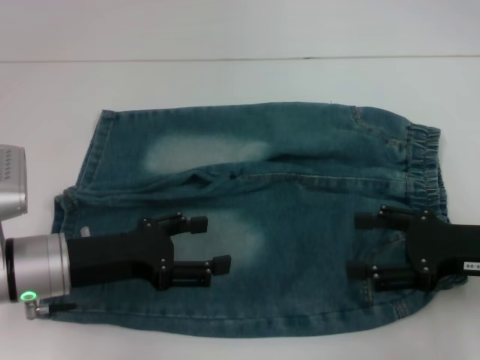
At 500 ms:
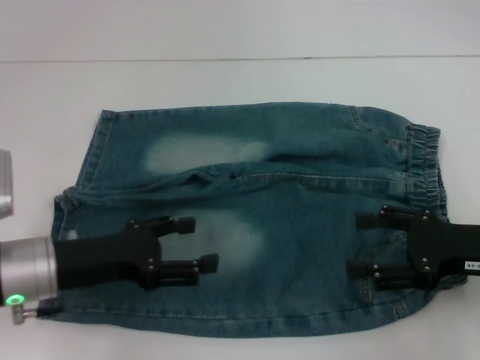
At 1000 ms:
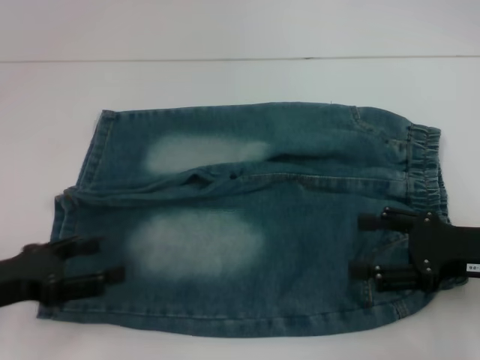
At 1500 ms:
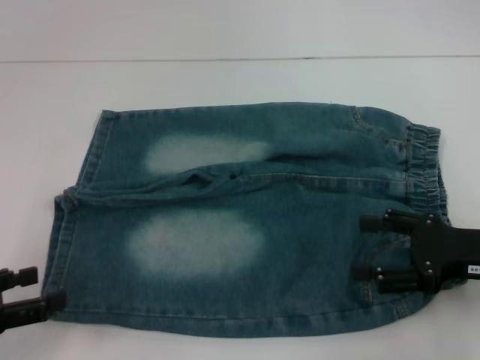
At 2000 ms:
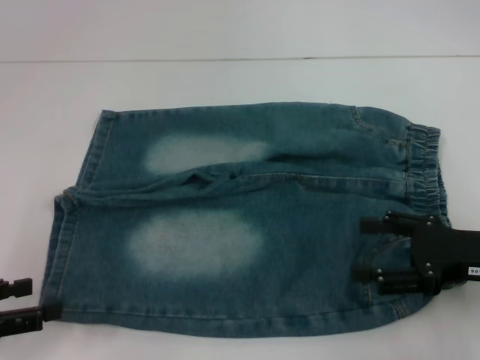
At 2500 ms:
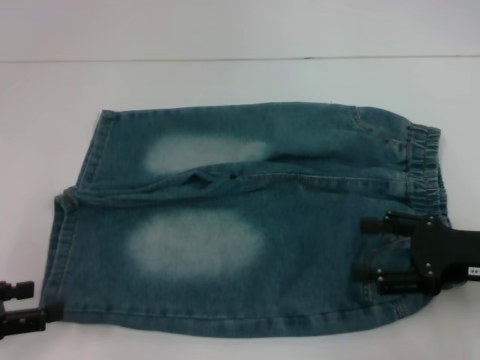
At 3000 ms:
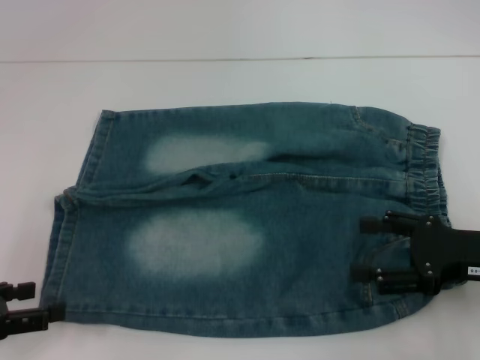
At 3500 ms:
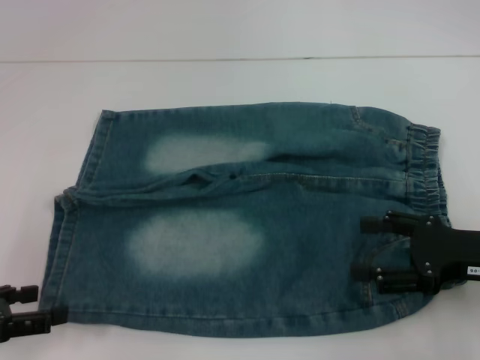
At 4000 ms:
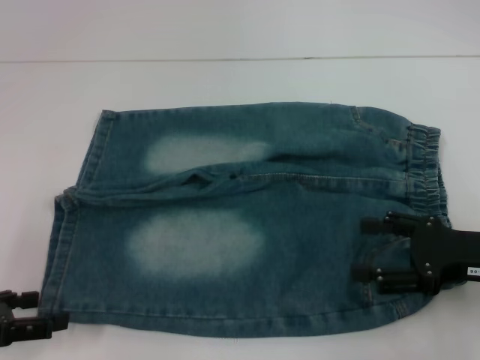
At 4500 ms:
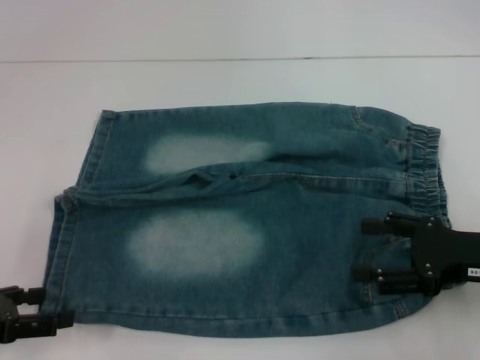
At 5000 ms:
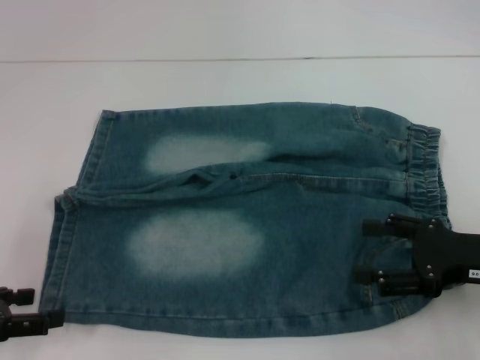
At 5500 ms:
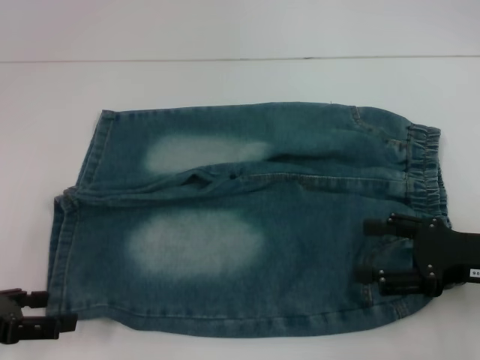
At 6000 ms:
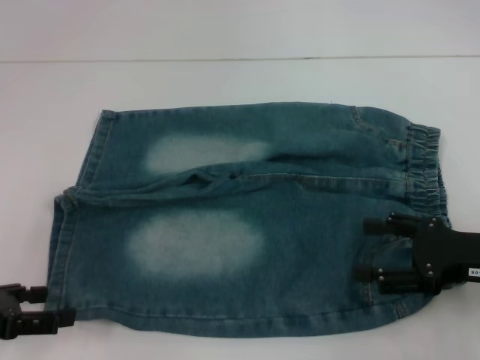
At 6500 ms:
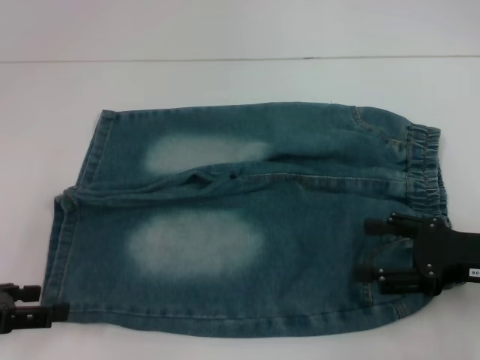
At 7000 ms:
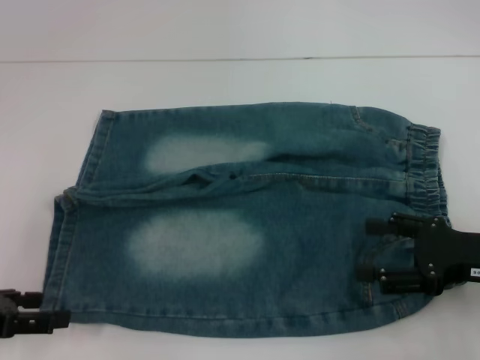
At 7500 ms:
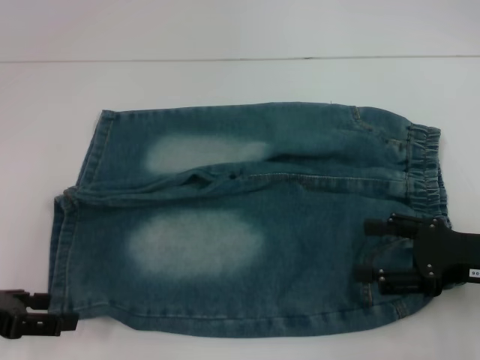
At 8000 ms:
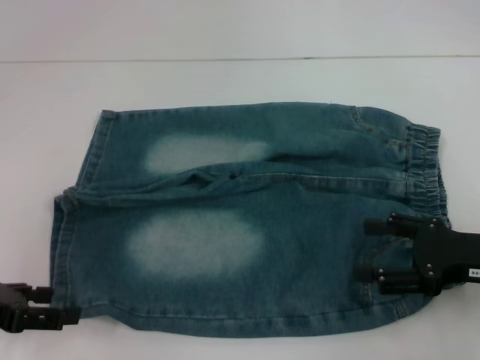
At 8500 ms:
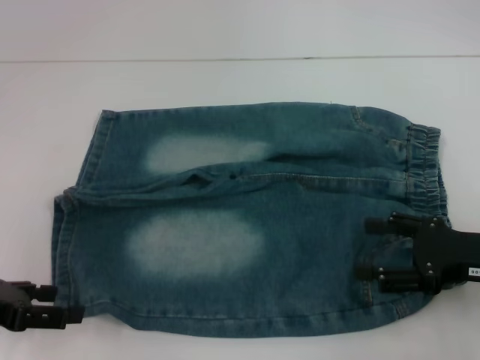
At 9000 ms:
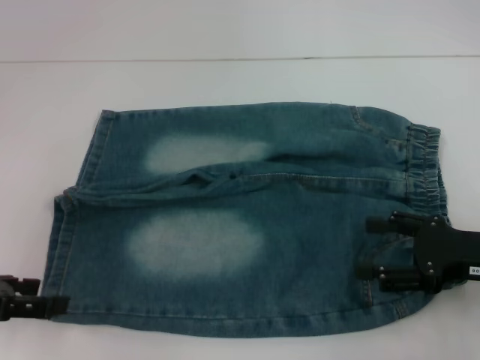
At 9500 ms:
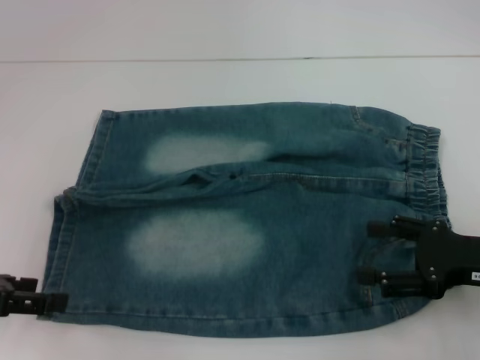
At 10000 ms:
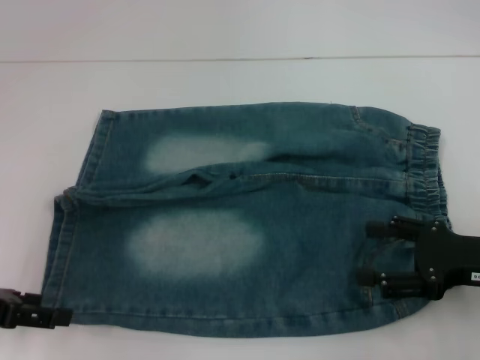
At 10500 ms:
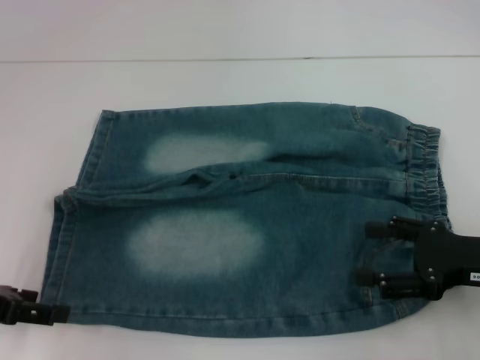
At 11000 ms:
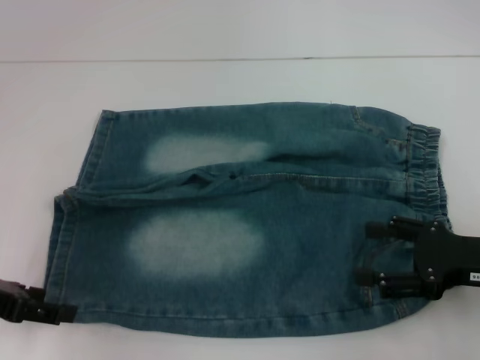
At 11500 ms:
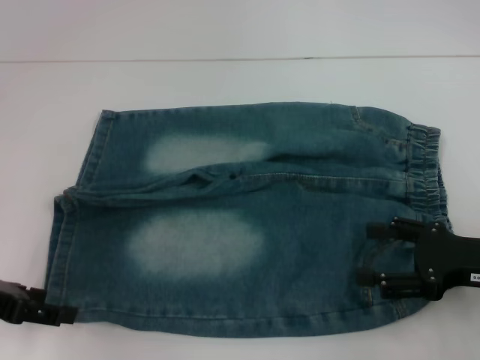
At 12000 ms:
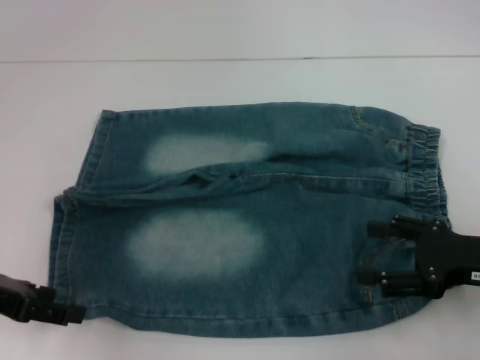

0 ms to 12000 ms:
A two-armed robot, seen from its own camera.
0 ms to 2000 ms: The left gripper travels to the left and backward by some 15 cm.
2000 ms to 8000 ms: The grippers stay close to where they were, moving slightly.
8000 ms to 12000 ms: The grippers make only small movements.

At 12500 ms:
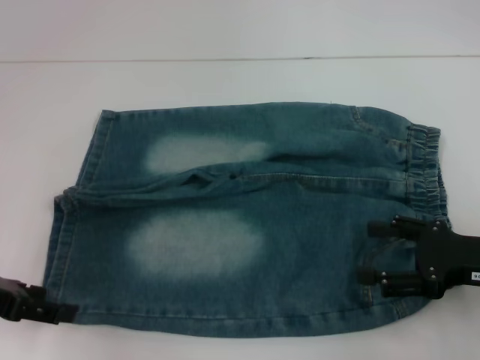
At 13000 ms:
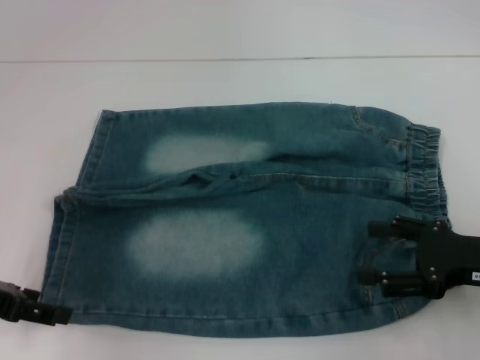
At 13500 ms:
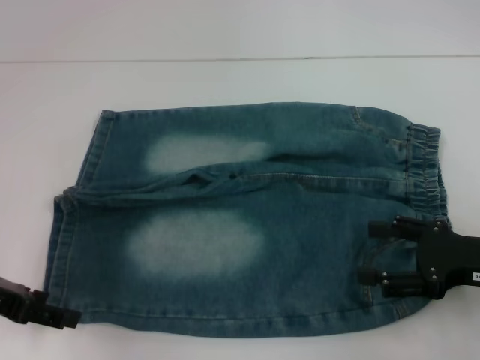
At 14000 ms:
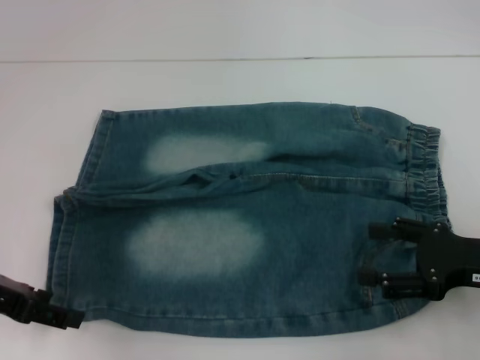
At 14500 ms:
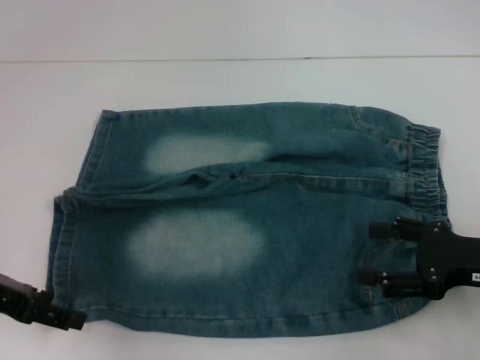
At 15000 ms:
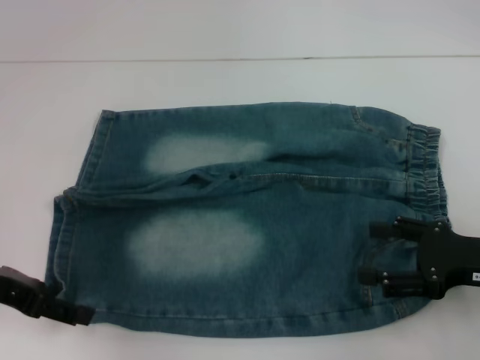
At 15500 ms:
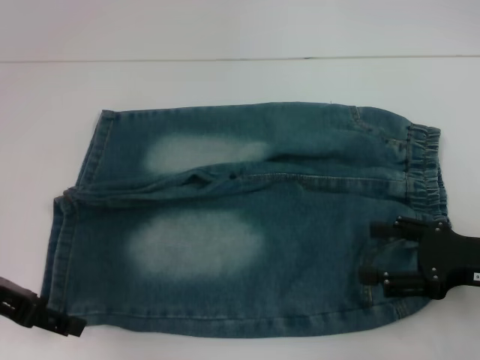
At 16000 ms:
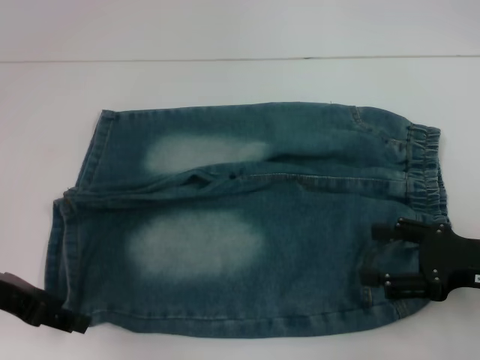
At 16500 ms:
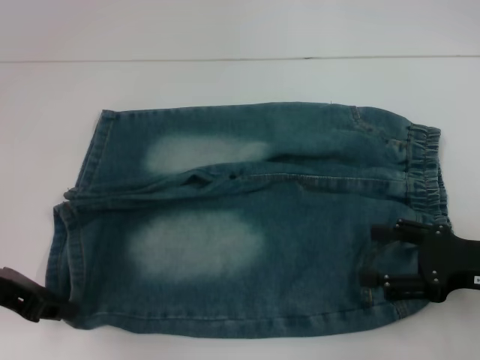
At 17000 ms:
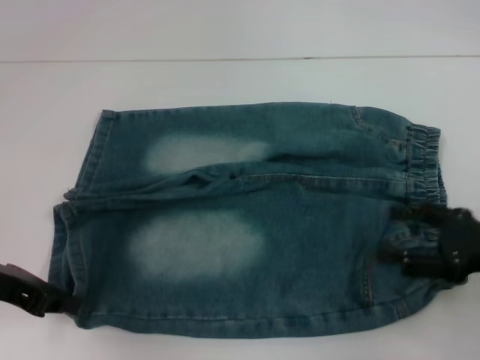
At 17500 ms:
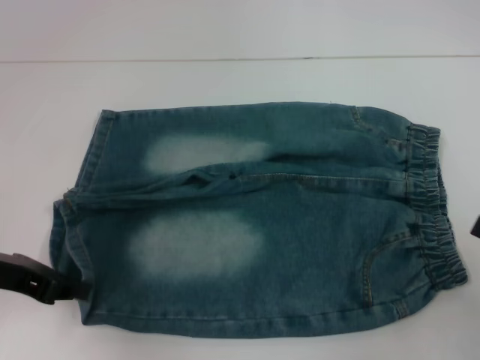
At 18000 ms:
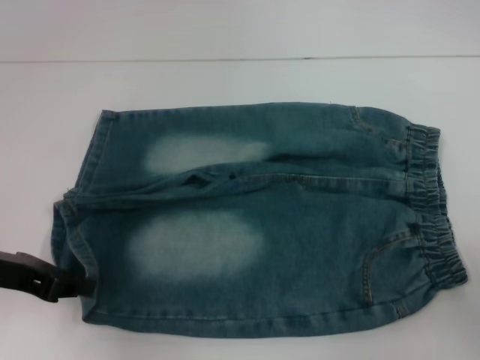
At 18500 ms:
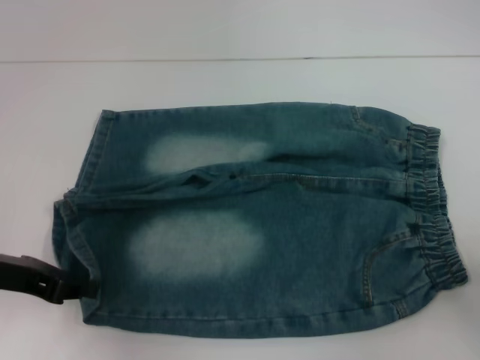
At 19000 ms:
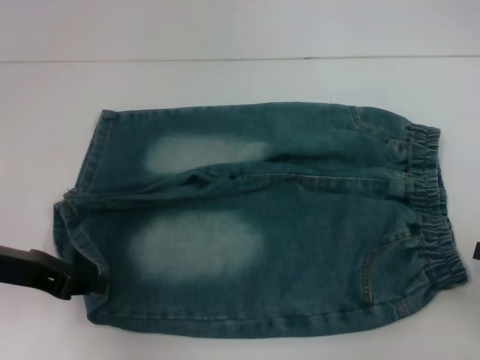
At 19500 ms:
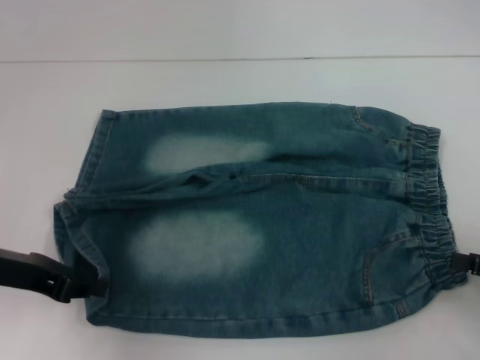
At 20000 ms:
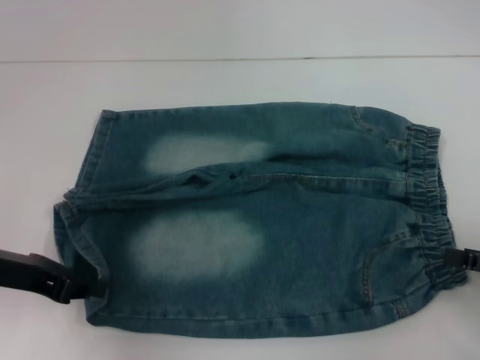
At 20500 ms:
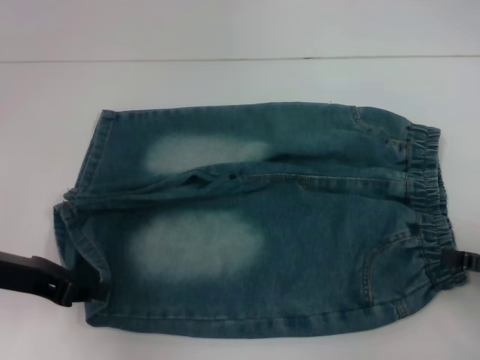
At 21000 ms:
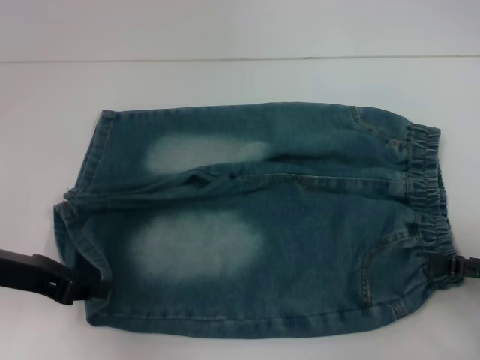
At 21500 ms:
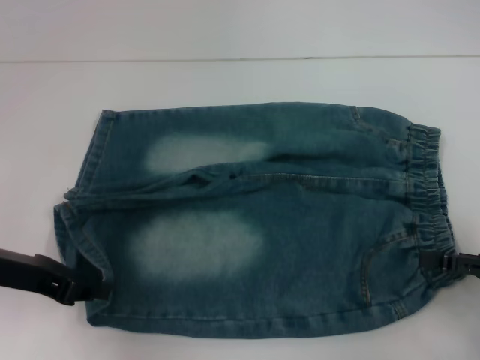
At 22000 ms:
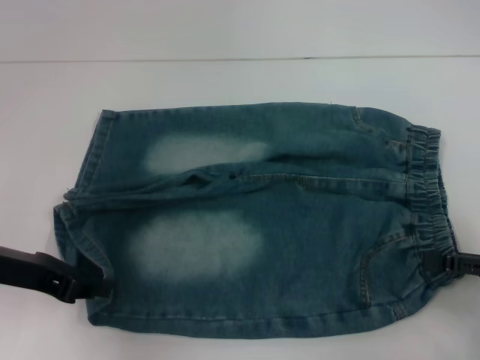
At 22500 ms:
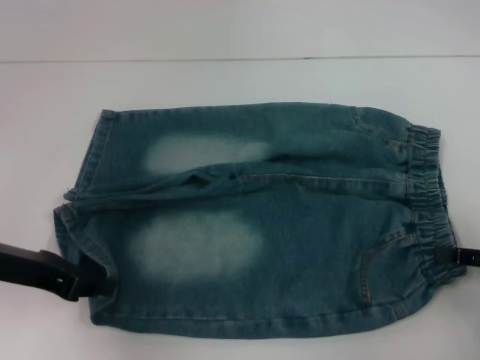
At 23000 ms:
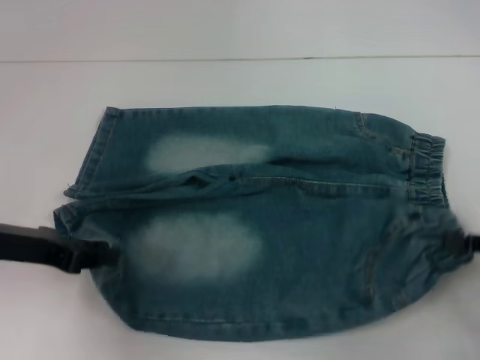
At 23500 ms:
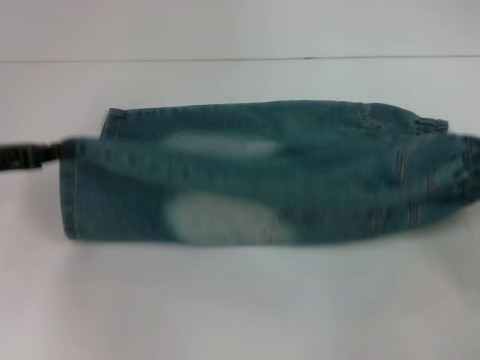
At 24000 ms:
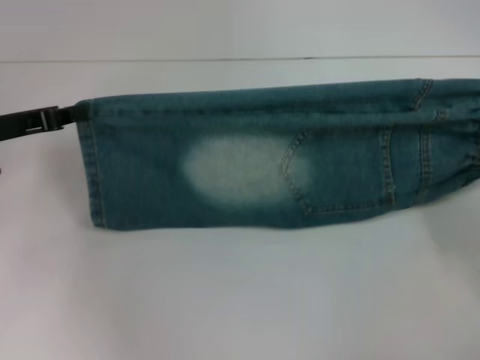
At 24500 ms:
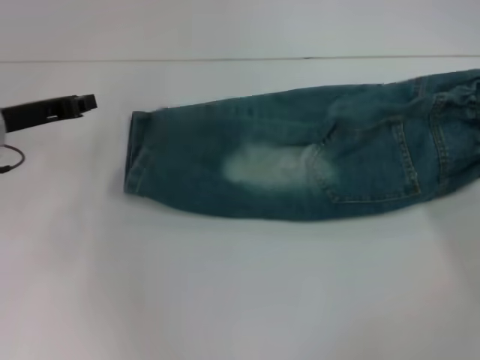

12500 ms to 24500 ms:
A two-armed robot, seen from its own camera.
Step, 12500 ms to 16000 ms: Grab the lower left pant leg with your left hand.
Step, 16500 ms to 22000 ms: Hold the lower right waistband with your right hand.
12500 ms to 14500 ms: The grippers stay close to where they were, moving slightly.
14500 ms to 16500 ms: The left gripper closes.
16500 ms to 18500 ms: The right gripper travels to the right and backward by some 10 cm.
18500 ms to 20500 ms: The grippers make only small movements.
20500 ms to 22500 ms: The right gripper closes its fingers.
22500 ms to 24500 ms: Both grippers travel together forward, about 10 cm.

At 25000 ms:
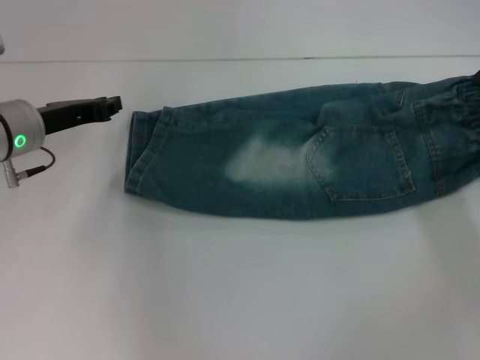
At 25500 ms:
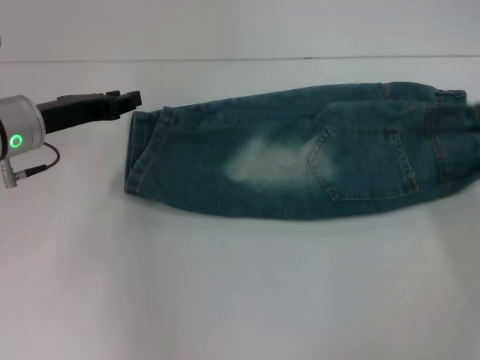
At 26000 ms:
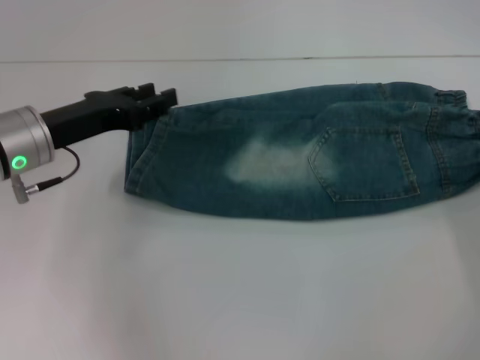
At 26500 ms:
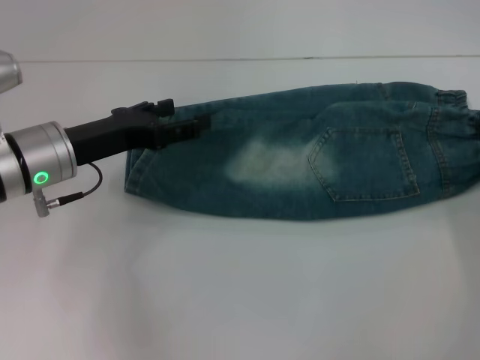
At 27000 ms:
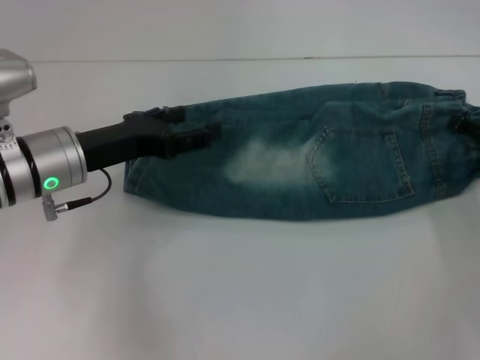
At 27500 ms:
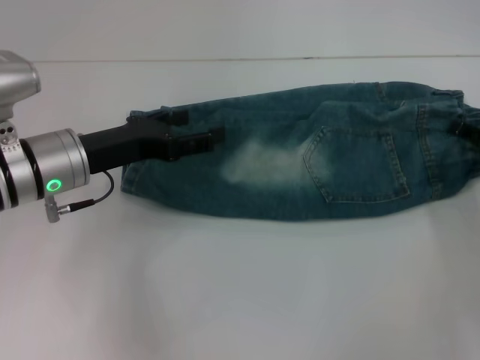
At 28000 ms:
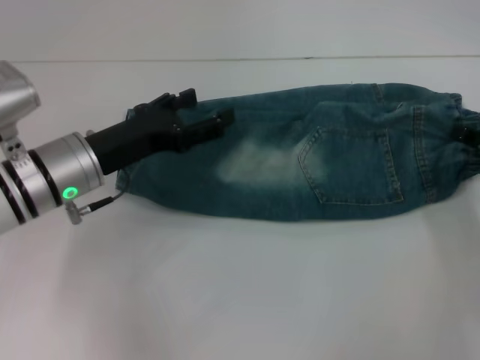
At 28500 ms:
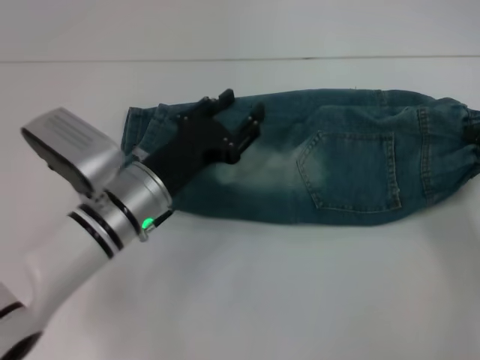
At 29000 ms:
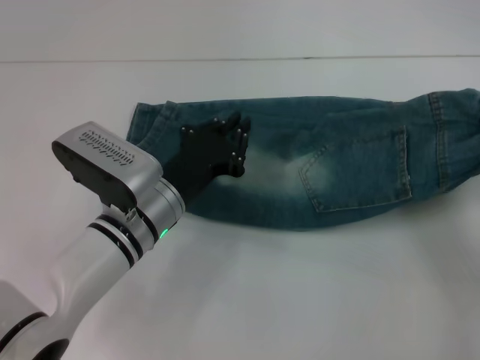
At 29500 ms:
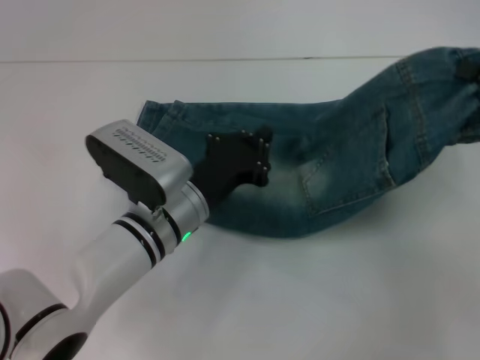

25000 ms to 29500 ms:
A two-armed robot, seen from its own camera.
25000 ms to 27000 ms: The left gripper moves roughly 5 cm, and opens its fingers; the right gripper opens up.
27000 ms to 29500 ms: The right gripper moves upward, some 10 cm, and closes, while the left gripper is displaced to the right and downward by about 15 cm, and closes its fingers.
